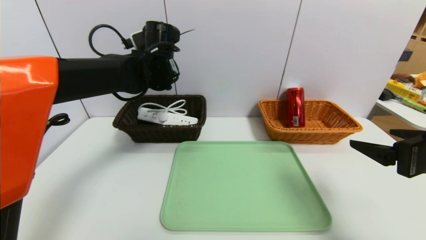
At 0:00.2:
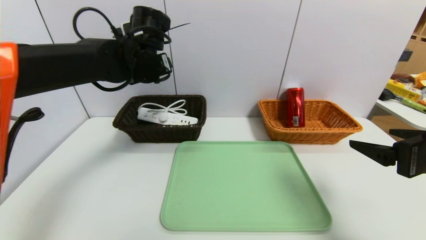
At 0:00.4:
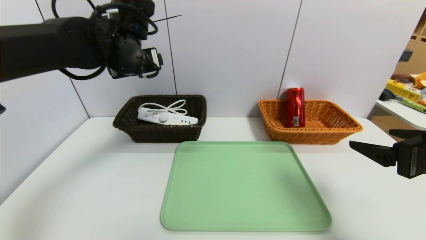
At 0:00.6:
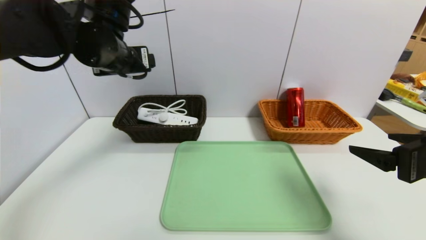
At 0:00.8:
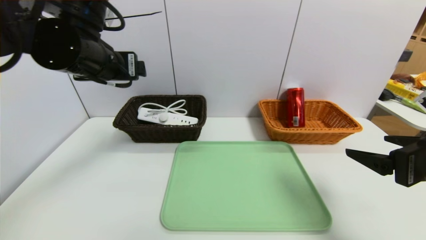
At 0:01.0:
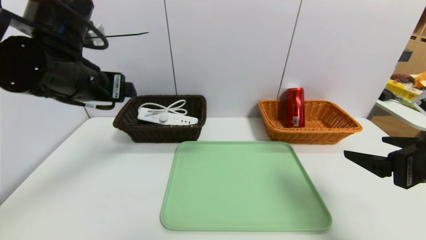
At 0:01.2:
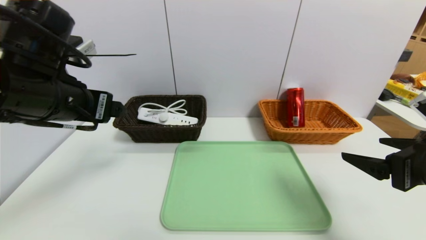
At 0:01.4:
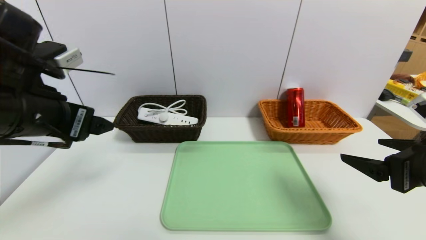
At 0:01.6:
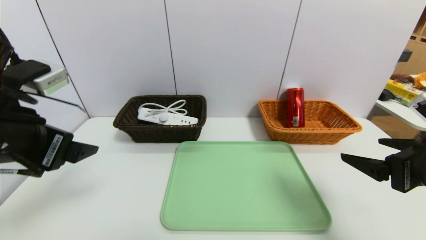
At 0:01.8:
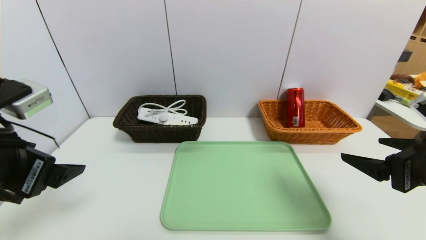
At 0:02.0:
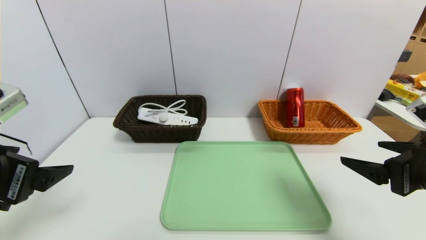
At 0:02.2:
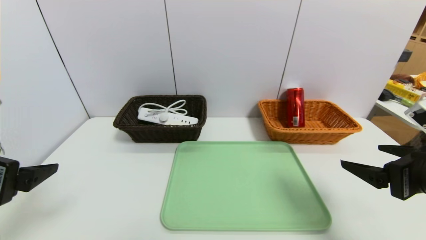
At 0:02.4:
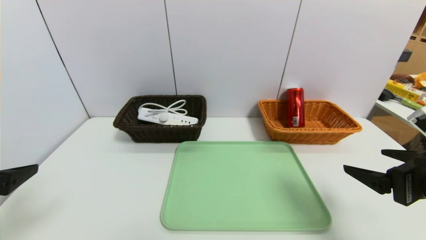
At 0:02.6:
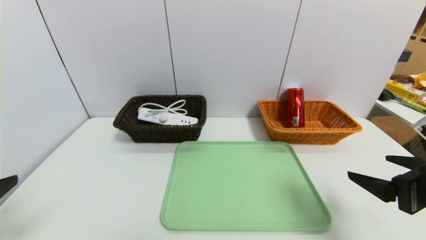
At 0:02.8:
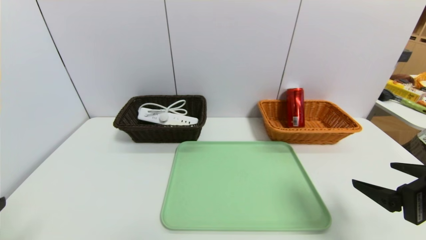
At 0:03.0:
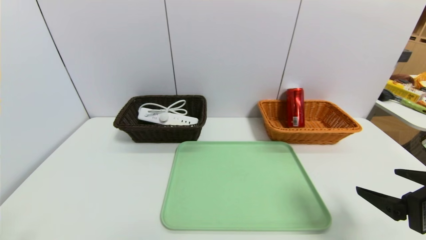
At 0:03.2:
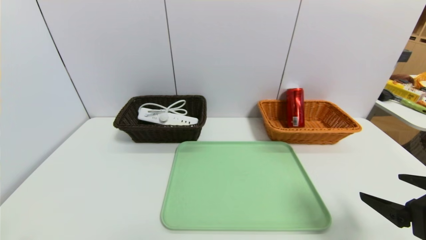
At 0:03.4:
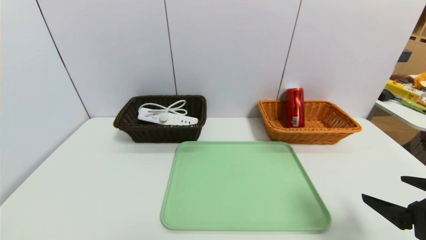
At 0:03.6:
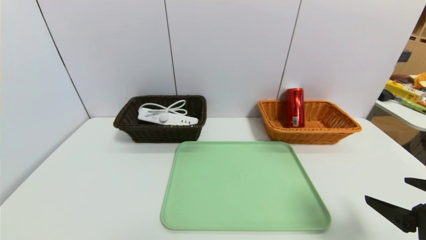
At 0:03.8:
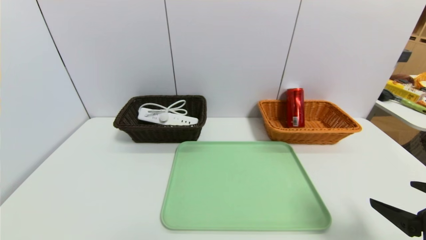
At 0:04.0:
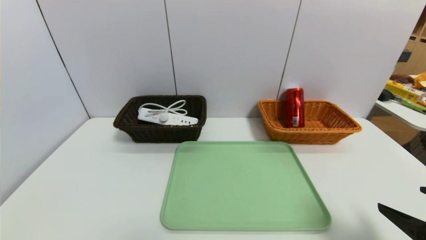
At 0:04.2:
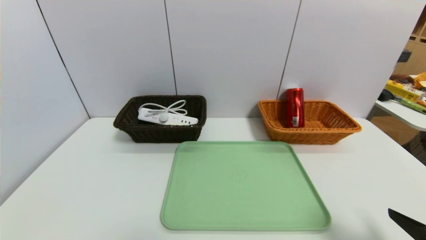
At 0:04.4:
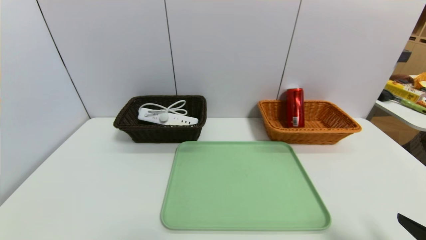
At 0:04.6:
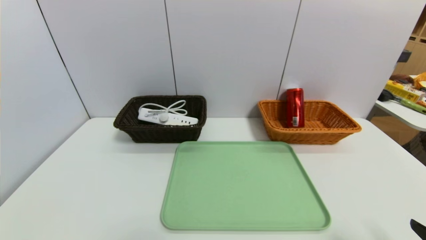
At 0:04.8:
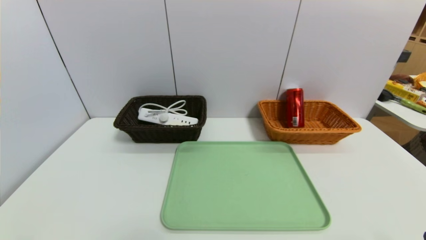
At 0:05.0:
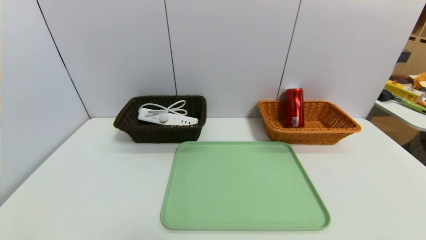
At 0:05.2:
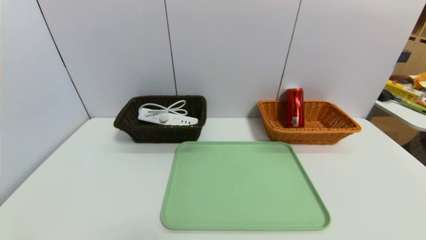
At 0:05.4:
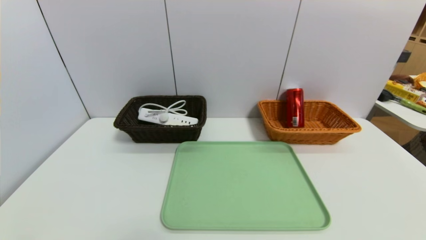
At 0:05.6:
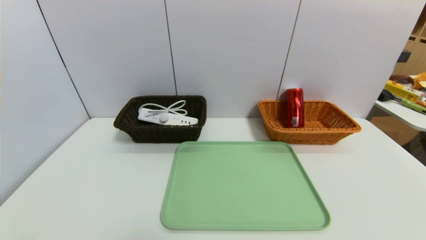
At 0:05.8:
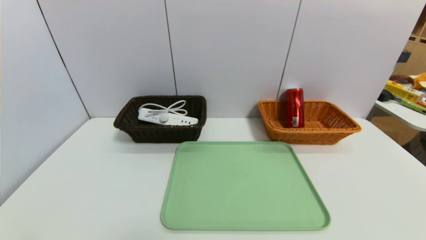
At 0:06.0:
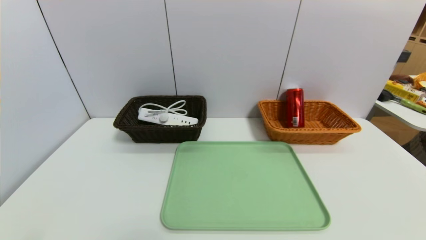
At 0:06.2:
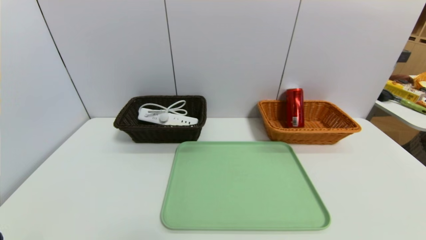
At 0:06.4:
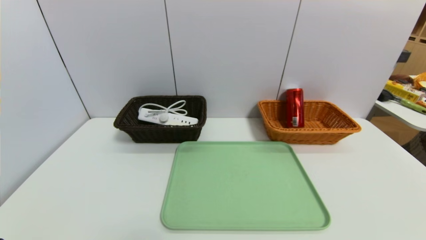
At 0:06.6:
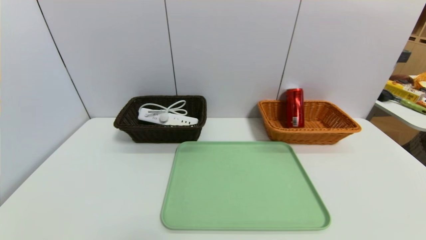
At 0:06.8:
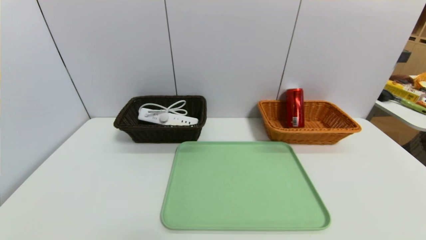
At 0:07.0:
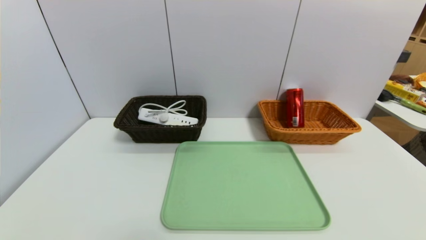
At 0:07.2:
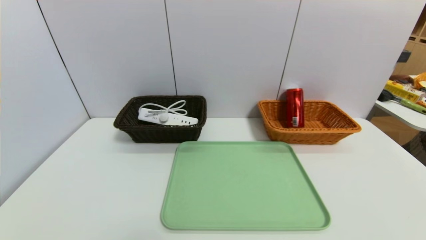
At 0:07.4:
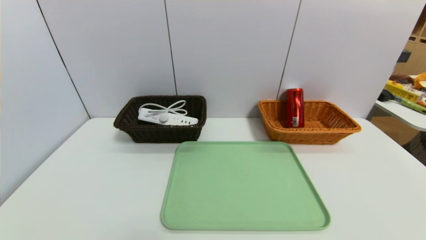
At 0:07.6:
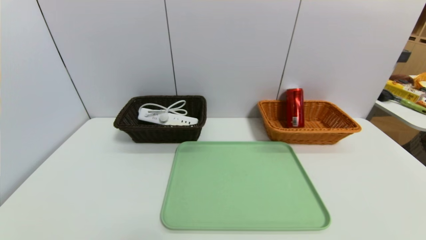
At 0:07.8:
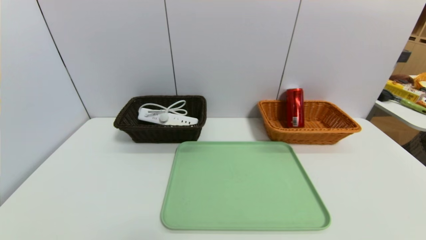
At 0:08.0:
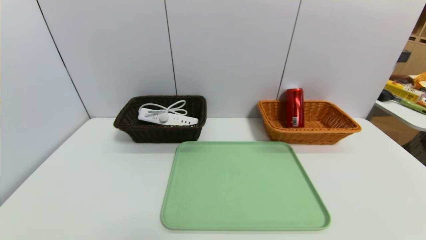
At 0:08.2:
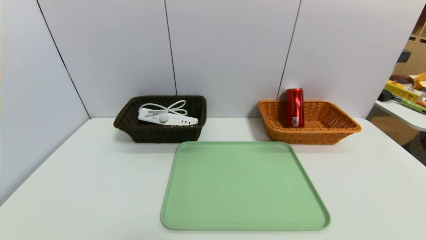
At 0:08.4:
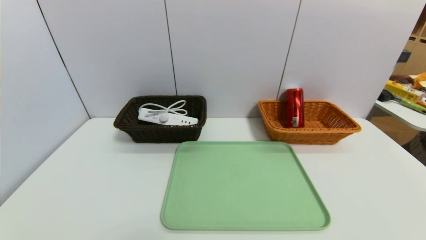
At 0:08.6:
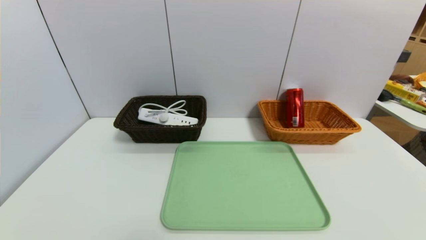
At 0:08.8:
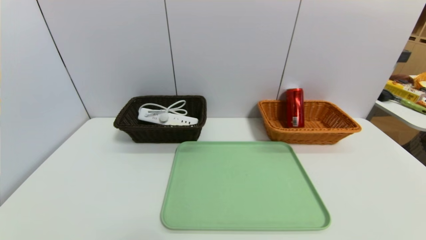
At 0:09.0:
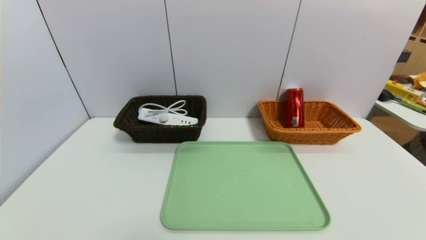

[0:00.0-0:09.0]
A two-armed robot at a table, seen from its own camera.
Task of the whole recording: place the food in the right basket with the right gripper, and place the non food items in the left basket with the left gripper.
0:00.0 to 0:01.6: The left gripper heads backward and to the left, covering roughly 25 cm.
0:01.6 to 0:03.0: The right gripper ends up roughly 5 cm from where it was, while the left gripper shifts approximately 15 cm backward, downward and to the left.
0:03.0 to 0:04.4: The right gripper travels backward by approximately 5 cm.
0:04.4 to 0:06.0: The right gripper moves backward, roughly 10 cm.

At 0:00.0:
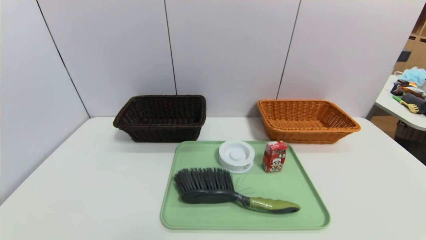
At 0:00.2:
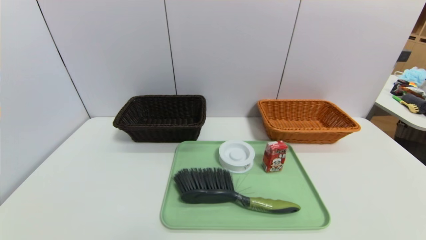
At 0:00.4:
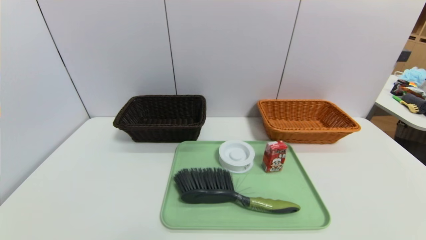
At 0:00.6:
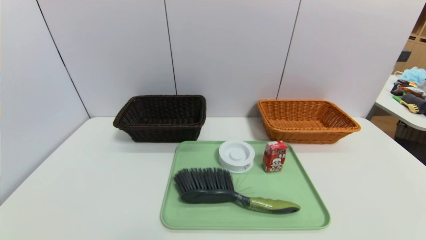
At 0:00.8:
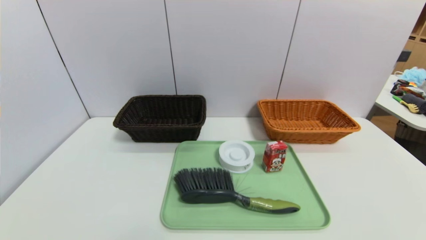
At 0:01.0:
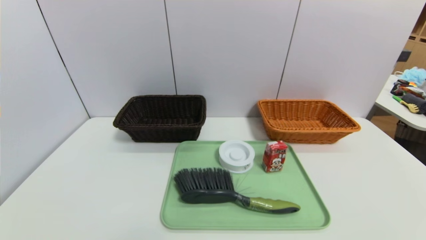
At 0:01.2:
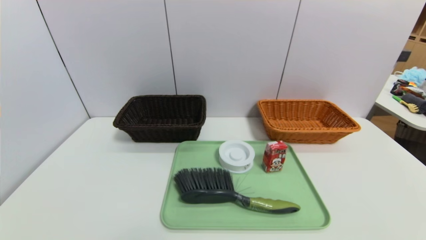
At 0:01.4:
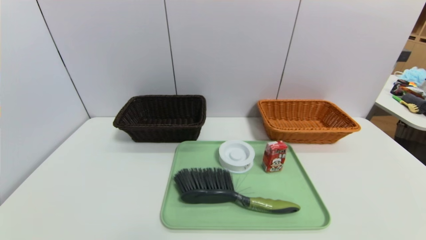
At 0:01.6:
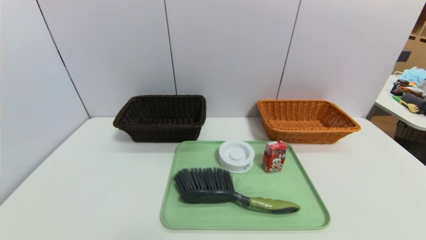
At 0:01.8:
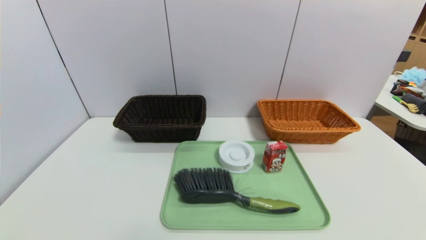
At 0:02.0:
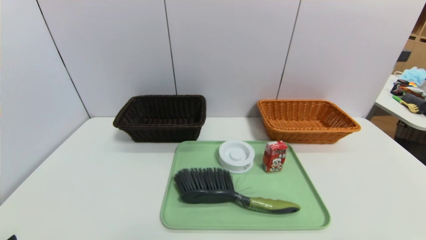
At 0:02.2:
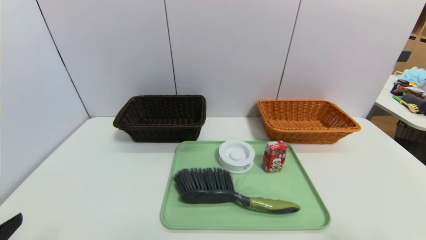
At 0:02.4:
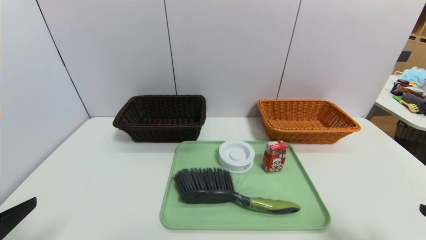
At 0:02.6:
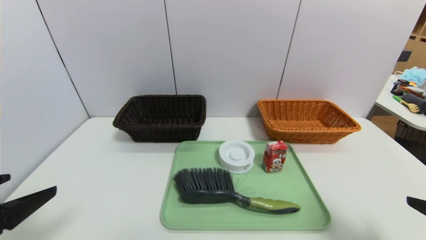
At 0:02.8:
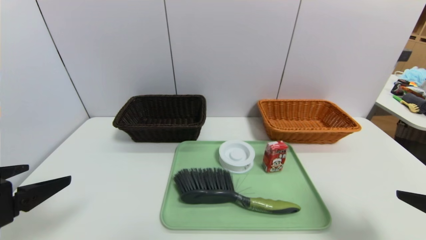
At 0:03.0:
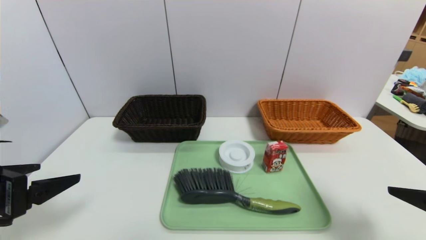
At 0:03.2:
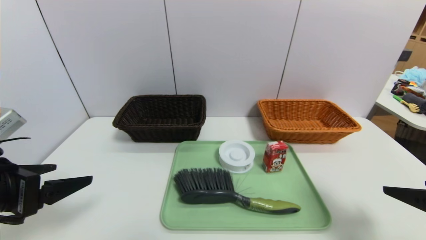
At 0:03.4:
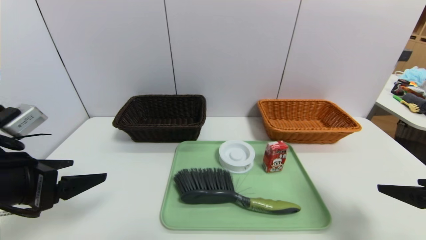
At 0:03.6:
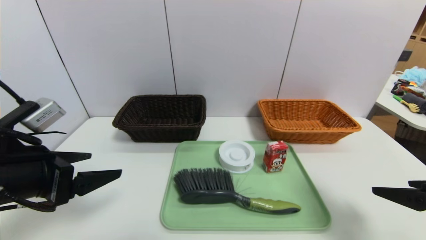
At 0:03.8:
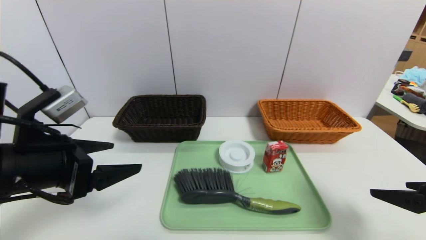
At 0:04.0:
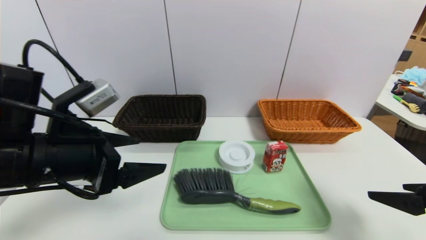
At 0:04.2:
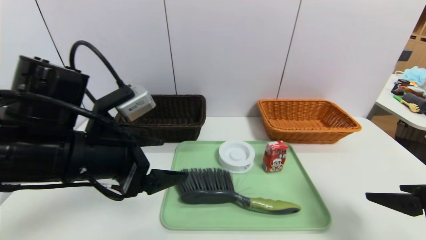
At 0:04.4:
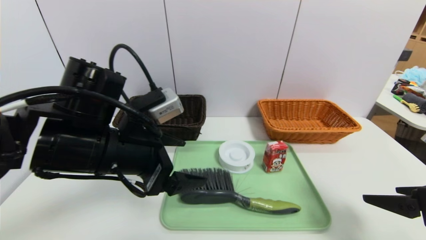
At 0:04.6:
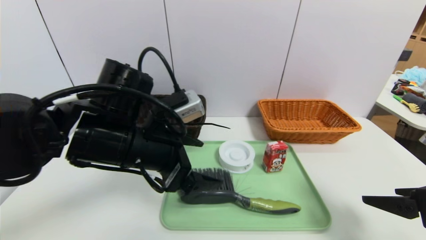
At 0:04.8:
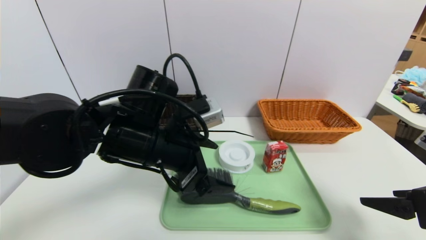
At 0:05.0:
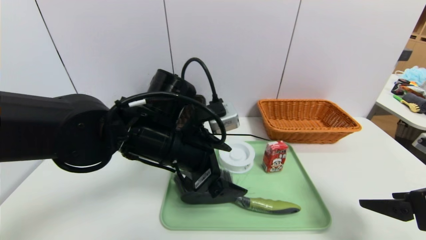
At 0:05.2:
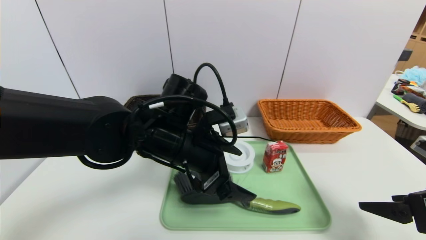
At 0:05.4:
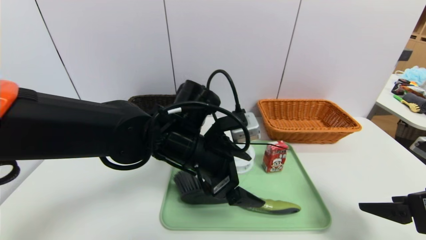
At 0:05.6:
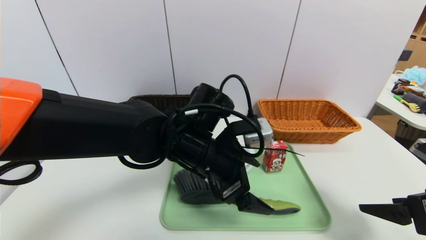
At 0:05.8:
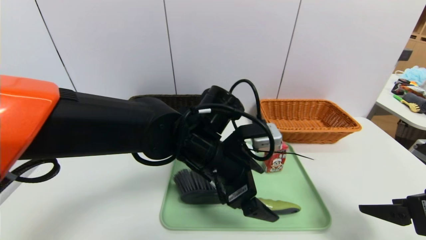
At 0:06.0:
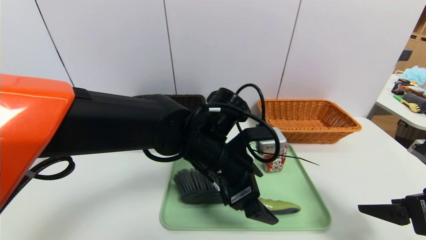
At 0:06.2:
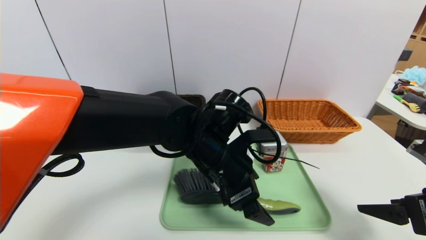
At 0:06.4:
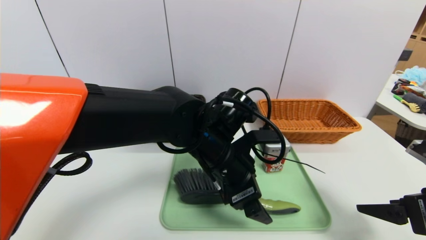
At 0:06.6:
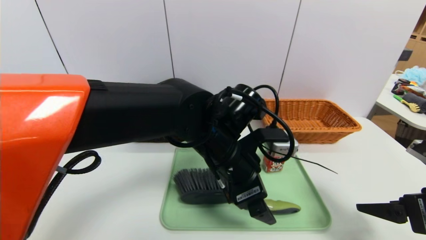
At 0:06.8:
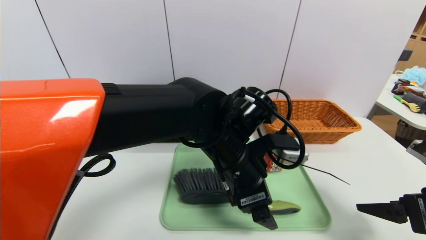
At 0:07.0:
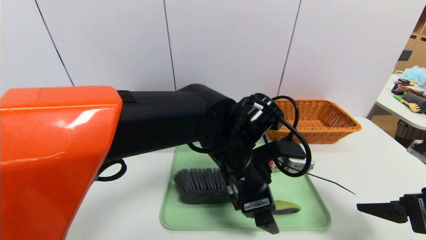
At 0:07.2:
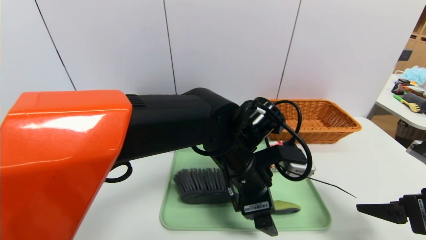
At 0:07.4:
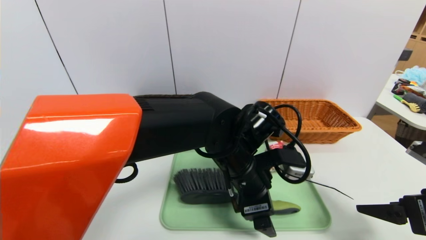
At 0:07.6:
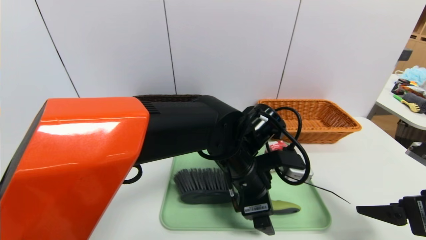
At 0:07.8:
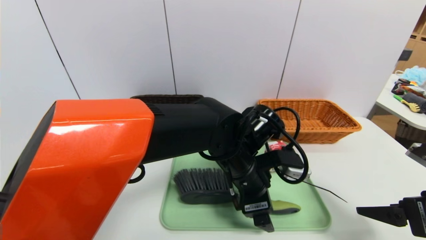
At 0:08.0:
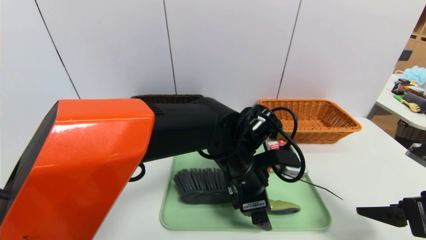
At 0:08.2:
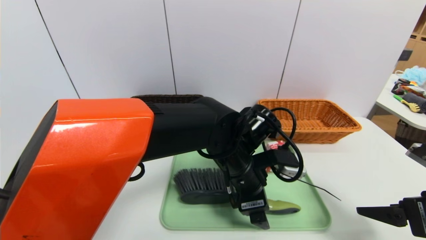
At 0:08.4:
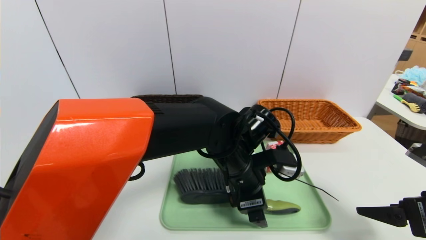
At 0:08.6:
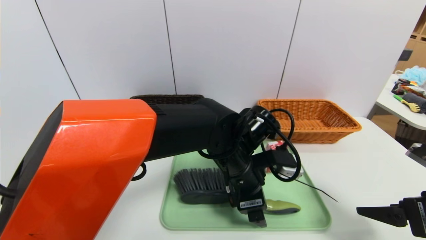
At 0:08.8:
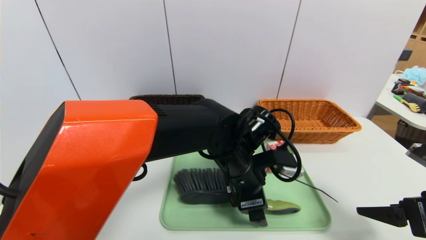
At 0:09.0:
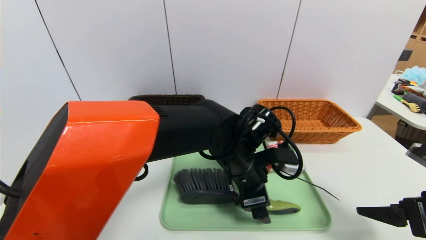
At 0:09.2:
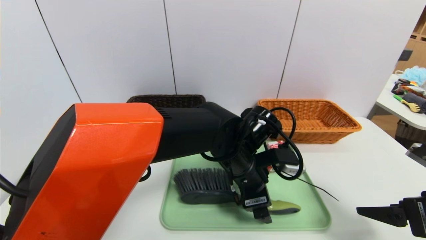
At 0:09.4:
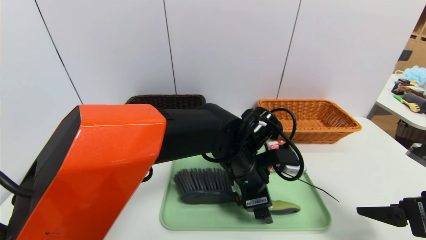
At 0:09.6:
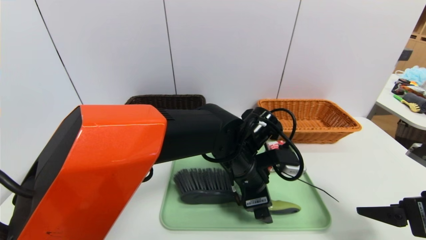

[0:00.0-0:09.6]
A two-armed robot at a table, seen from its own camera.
Task of the whole recording: place the food in the right basket with the right gripper, and place the non food items in the left basket with the left gripper.
0:01.6 to 0:03.2: The two grippers go some 20 cm forward and upward.
0:03.2 to 0:04.8: The left gripper shifts roughly 20 cm to the right and forward.
0:04.8 to 0:06.4: The left gripper is displaced to the right by roughly 10 cm.
0:08.0 to 0:09.6: The grippers stay close to where they were, moving slightly.
